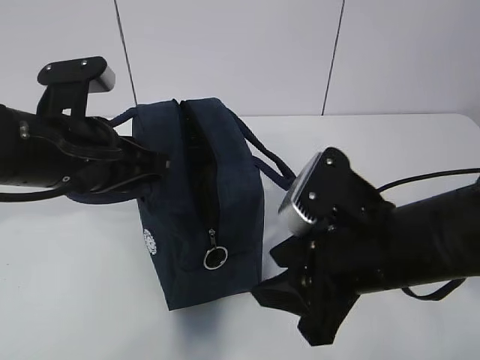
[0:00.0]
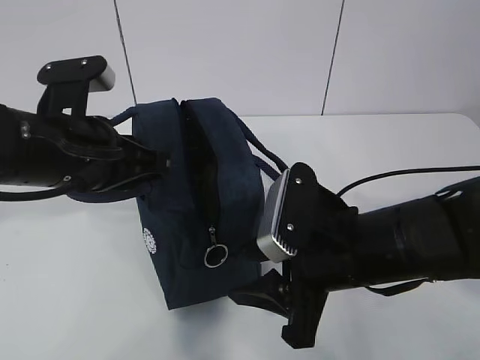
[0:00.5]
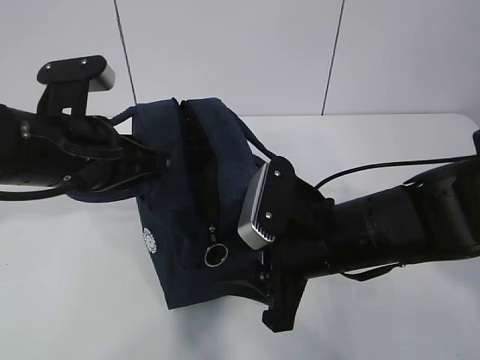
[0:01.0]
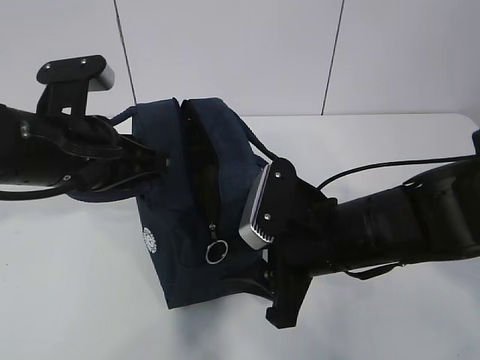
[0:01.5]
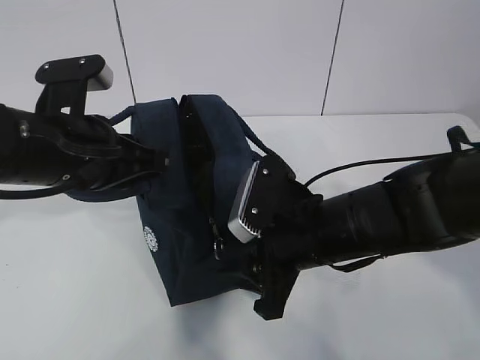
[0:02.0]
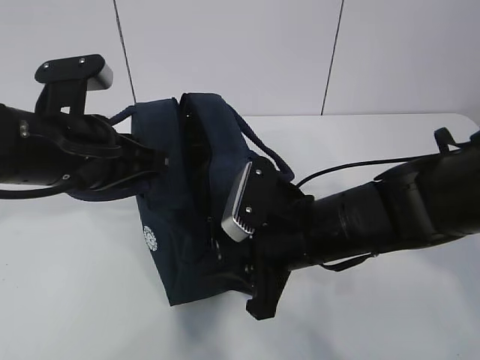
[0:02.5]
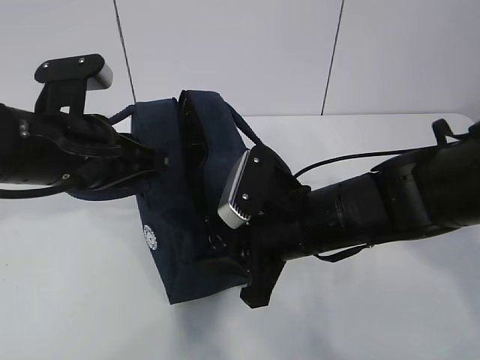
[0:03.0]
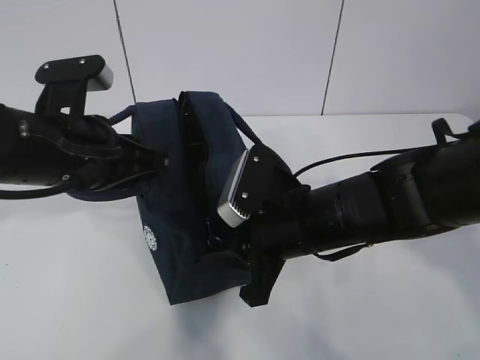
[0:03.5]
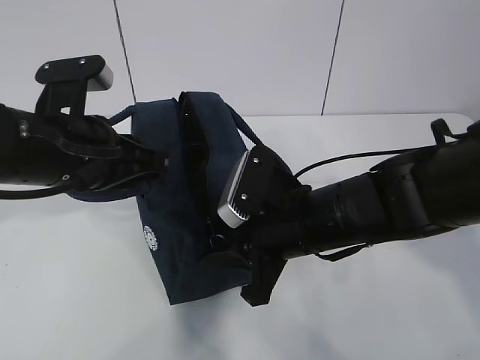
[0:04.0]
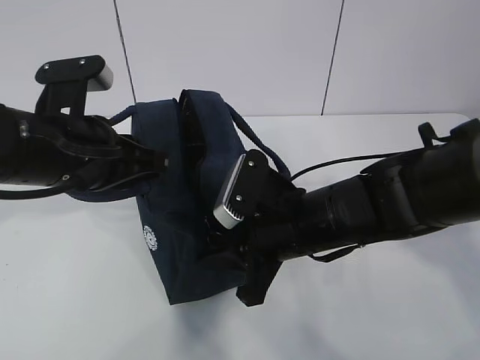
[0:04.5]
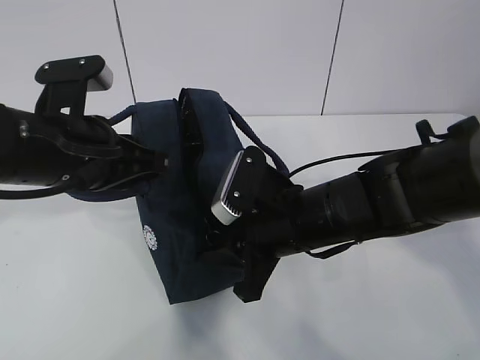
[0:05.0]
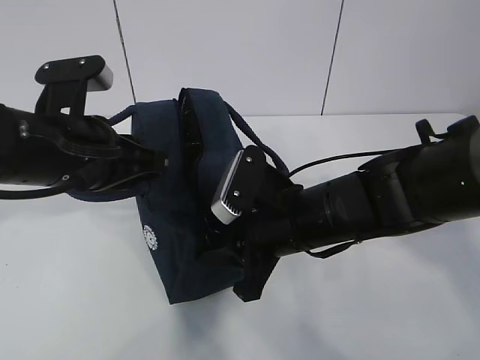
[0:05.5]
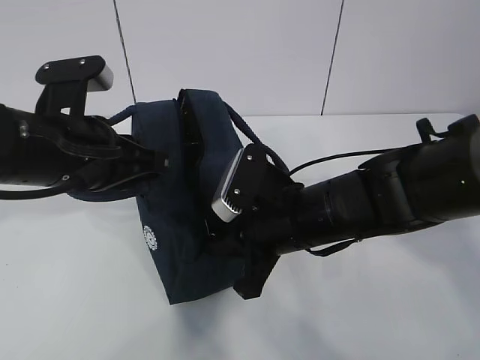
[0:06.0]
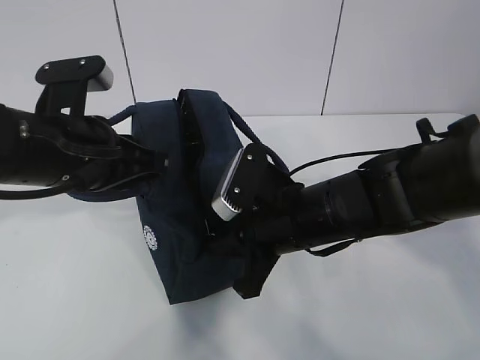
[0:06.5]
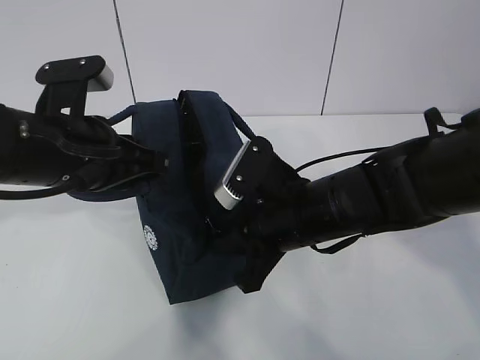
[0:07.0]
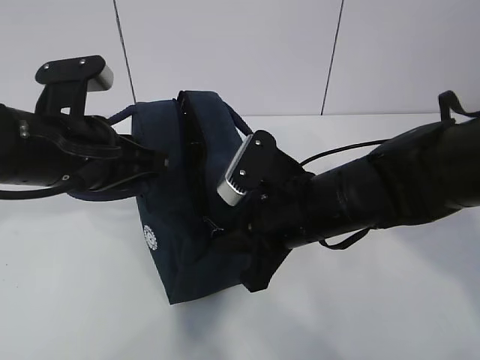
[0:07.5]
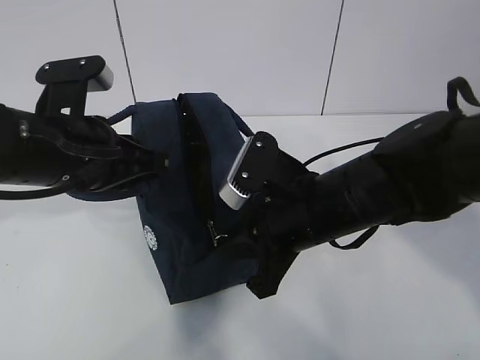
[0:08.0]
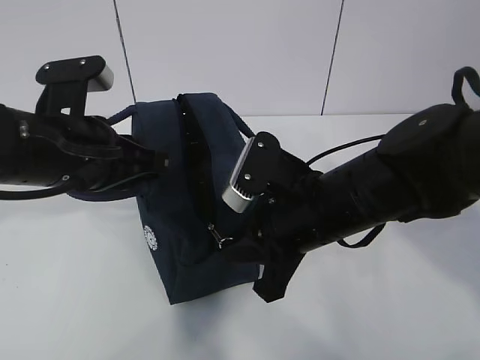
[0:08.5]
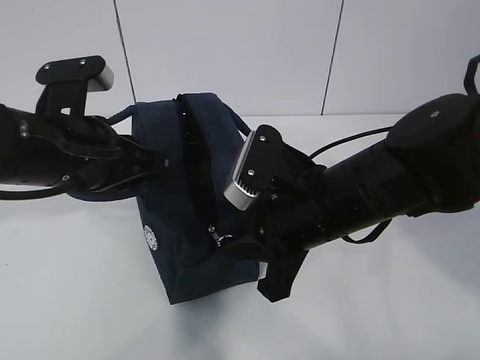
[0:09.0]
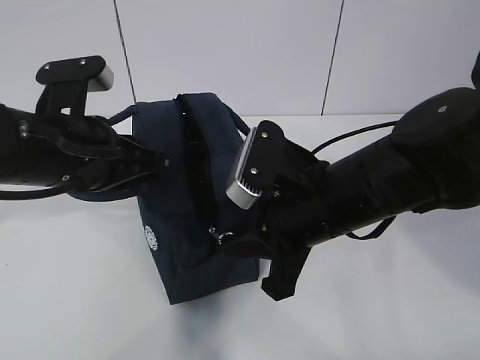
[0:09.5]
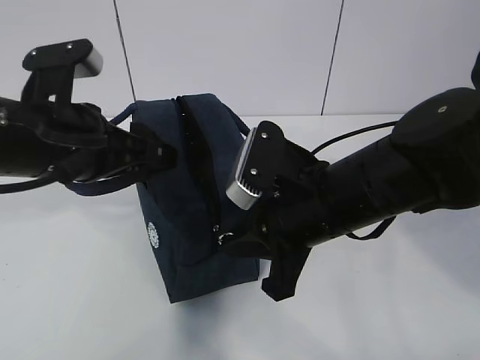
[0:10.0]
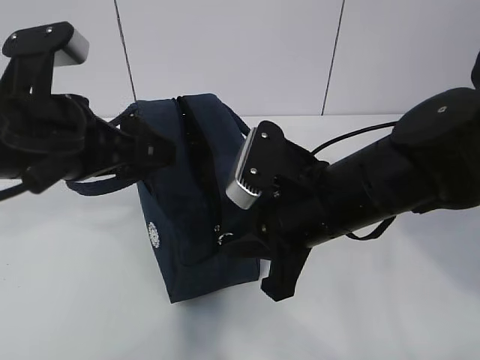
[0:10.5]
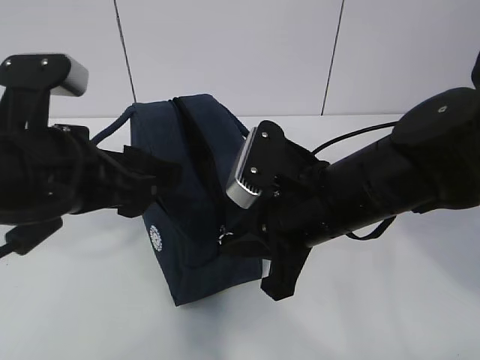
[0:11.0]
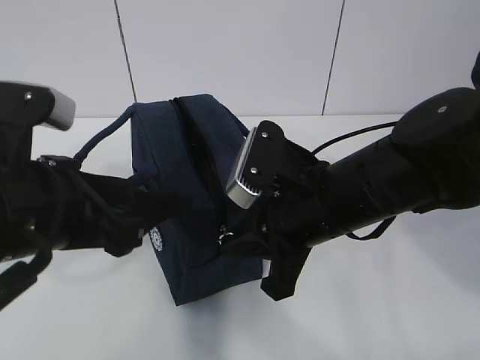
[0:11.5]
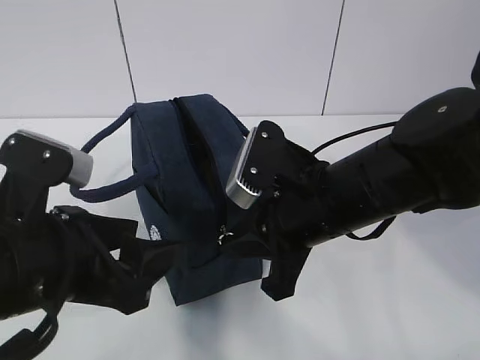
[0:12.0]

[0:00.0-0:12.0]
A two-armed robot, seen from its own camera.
0:00.0 to 0:02.0: The right gripper goes roughly 5 cm forward.
0:02.0 to 0:04.0: Both grippers stay about where they are.
0:04.0 to 0:06.0: The right gripper closes its fingers.
0:06.0 to 0:08.0: The grippers move only a little.
0:08.0 to 0:10.0: The left gripper opens its fingers.
0:10.0 to 0:12.0: The left gripper is displaced backward by some 10 cm.

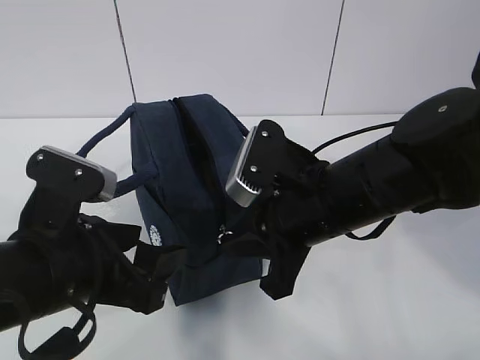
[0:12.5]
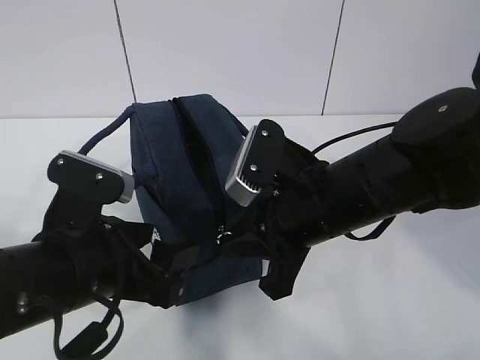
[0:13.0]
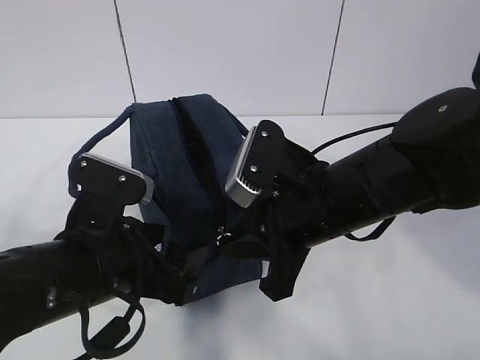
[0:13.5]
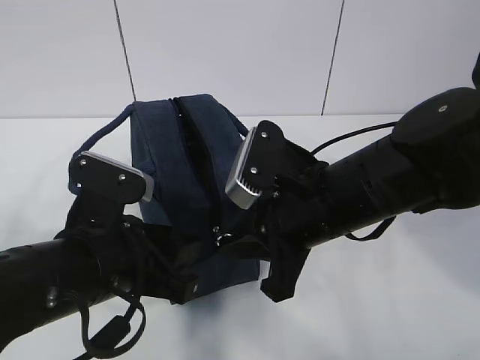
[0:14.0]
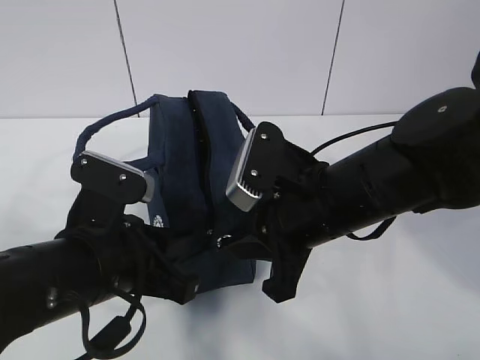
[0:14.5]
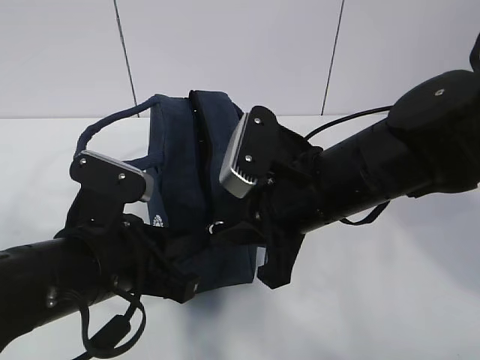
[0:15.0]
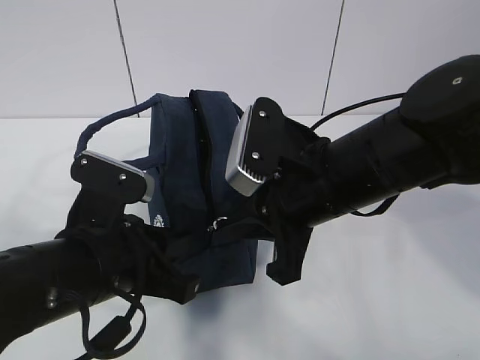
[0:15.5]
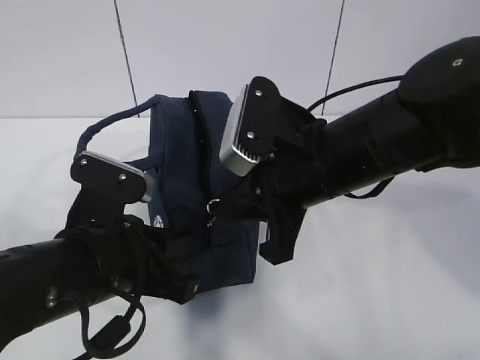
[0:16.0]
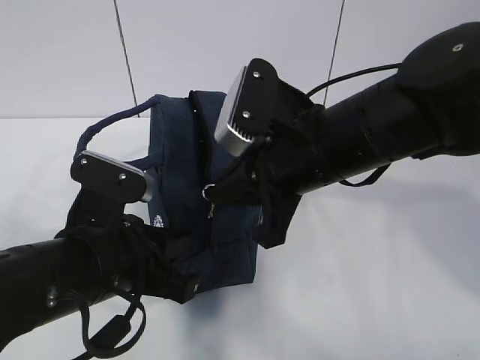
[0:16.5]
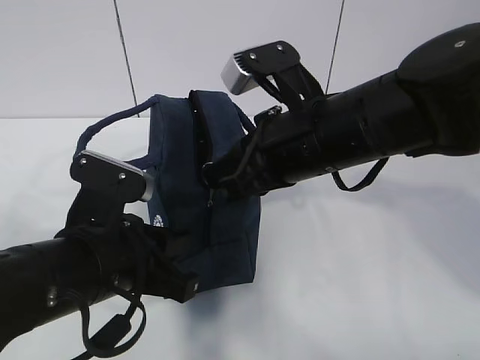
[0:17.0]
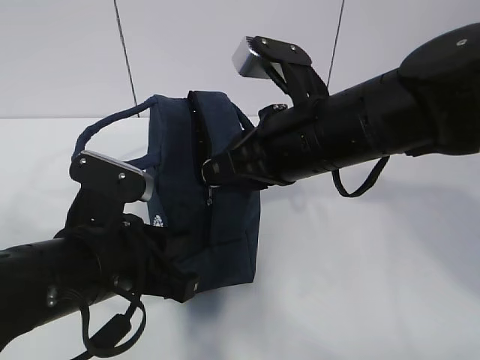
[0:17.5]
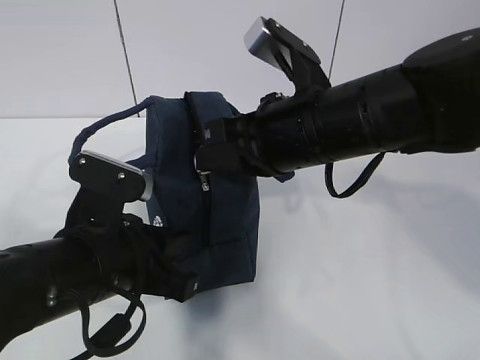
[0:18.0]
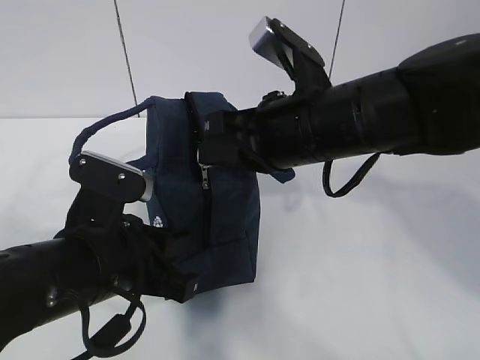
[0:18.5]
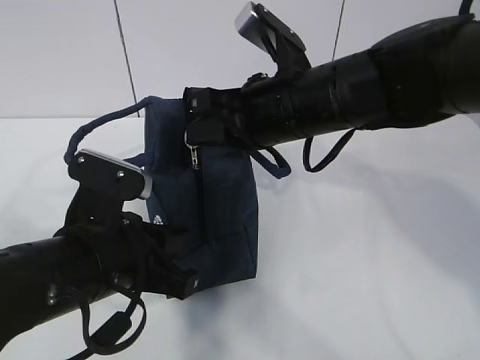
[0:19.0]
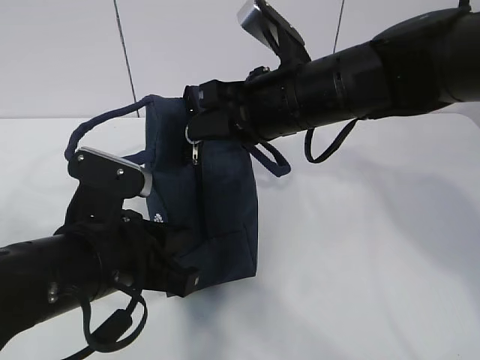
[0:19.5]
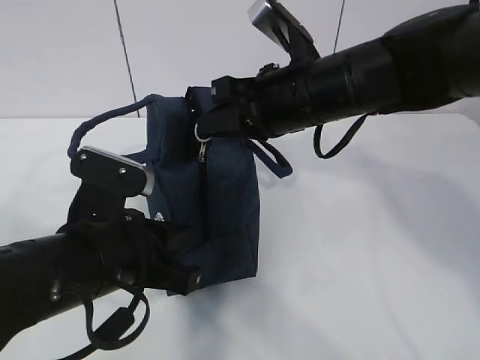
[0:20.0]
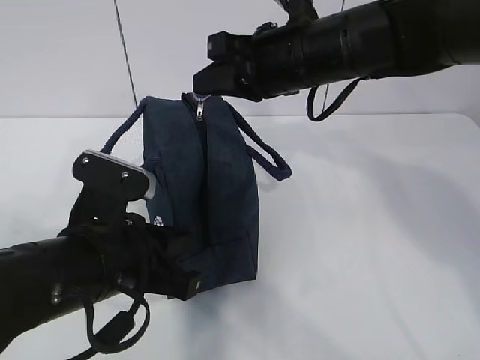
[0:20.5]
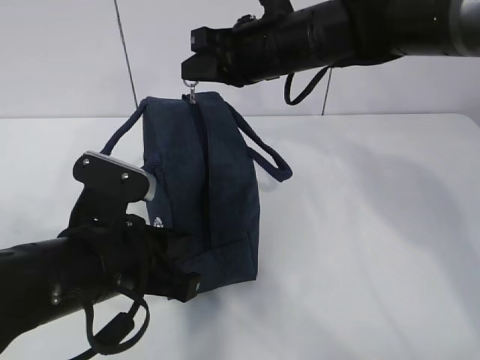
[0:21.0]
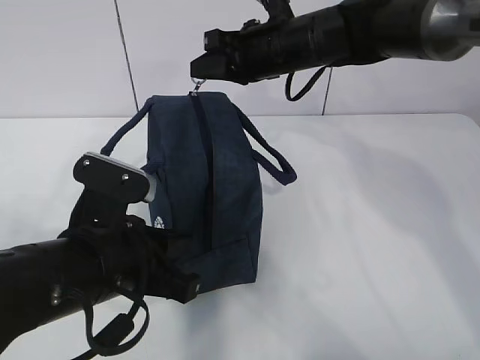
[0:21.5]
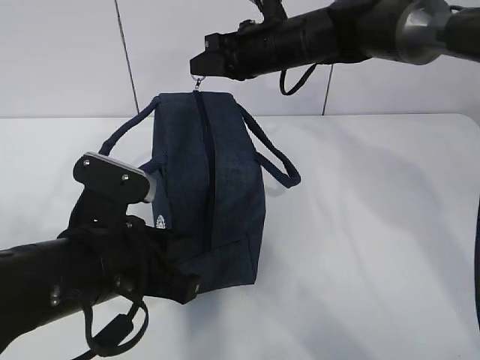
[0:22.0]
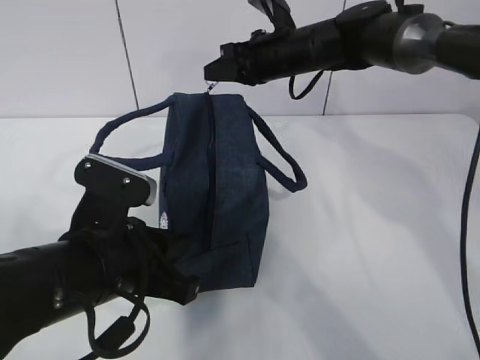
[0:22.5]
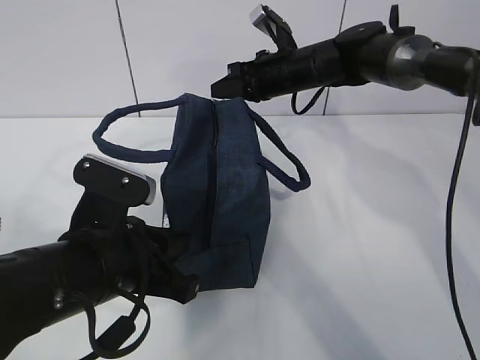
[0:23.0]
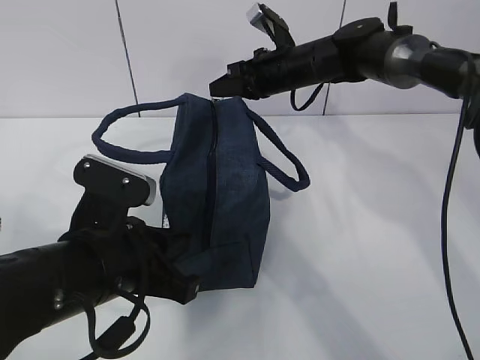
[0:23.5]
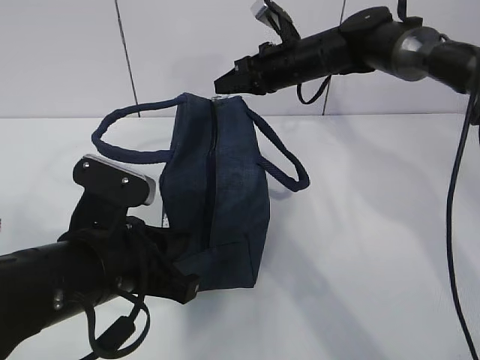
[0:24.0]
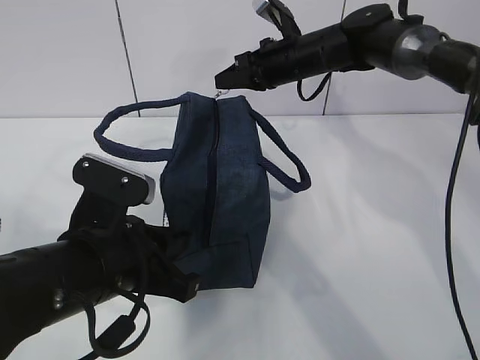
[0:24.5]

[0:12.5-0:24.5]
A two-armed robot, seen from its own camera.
0:12.5 to 0:14.5: The left gripper closes its fingers.
0:18.5 to 0:20.5: The right gripper shifts some 5 cm forward.
0:20.5 to 0:22.5: The right gripper moves forward and downward, roughly 15 cm.
0:22.5 to 0:24.5: There are only small adjustments of the grippers.

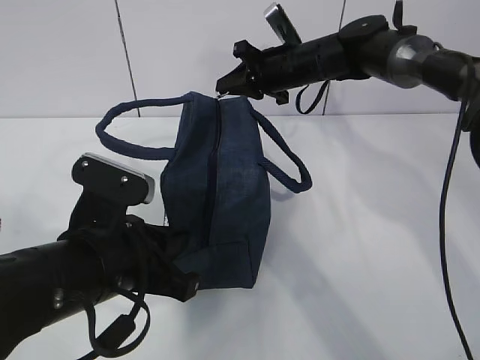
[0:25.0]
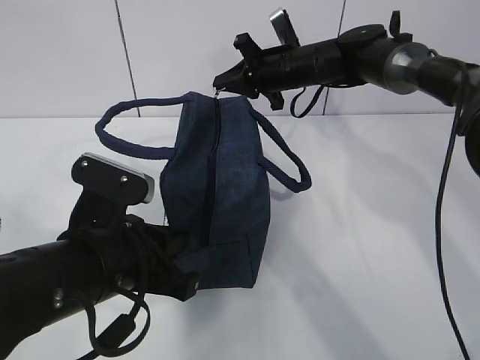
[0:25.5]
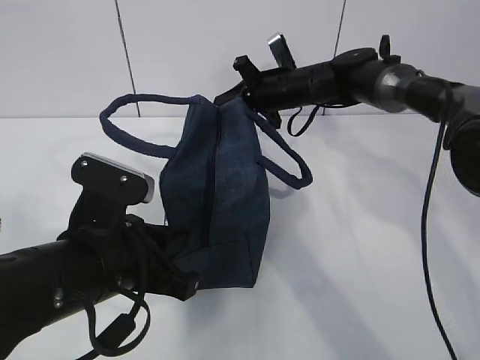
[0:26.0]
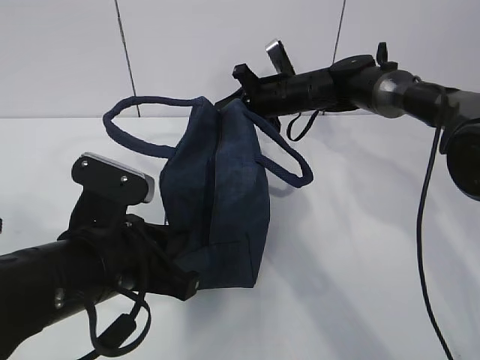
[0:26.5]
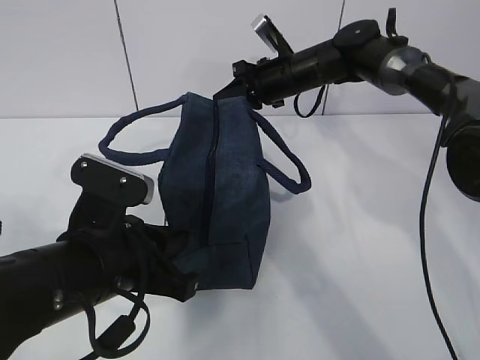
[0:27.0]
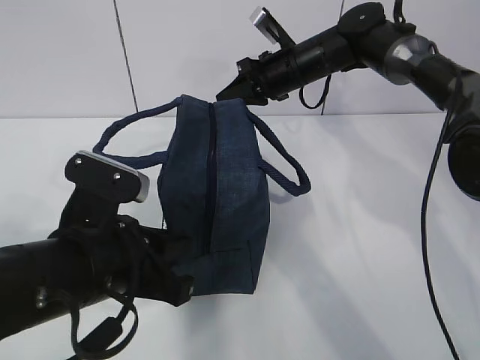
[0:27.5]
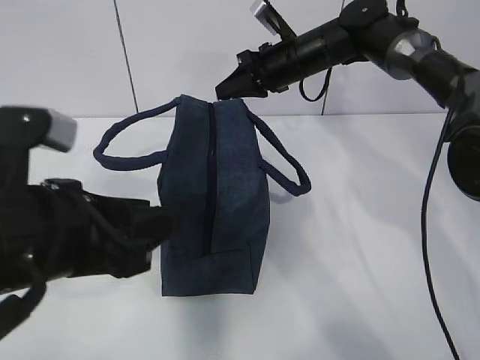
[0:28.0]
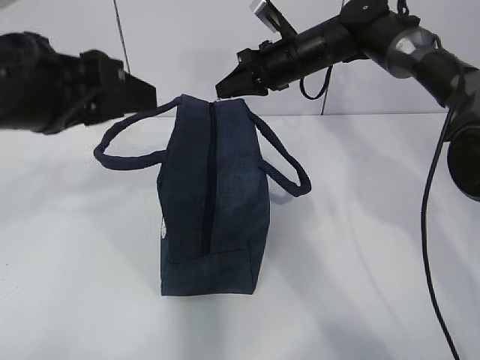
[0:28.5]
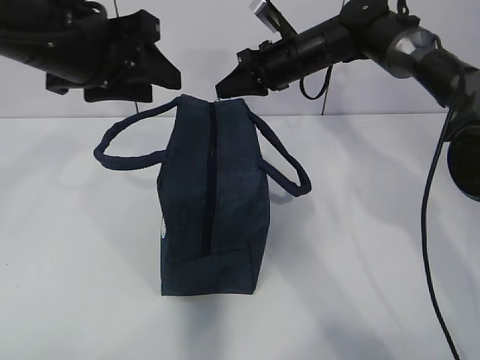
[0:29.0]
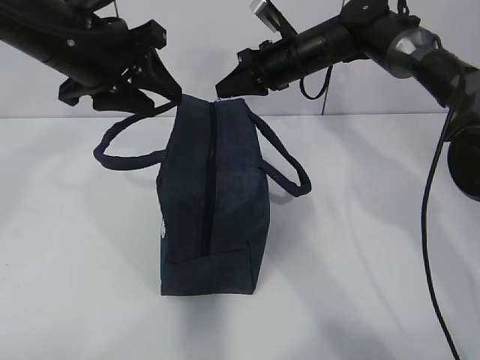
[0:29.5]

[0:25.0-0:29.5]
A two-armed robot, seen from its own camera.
0:25.0 to 0:27.0: There are only small adjustments of the grippers.
0:27.0 to 0:29.5: The left gripper is displaced forward and upward by some 20 cm, and opens its fingers.
